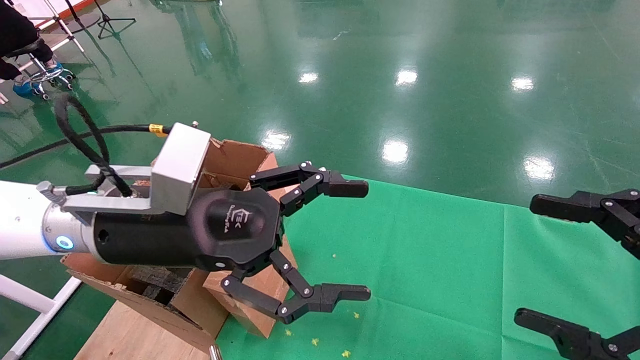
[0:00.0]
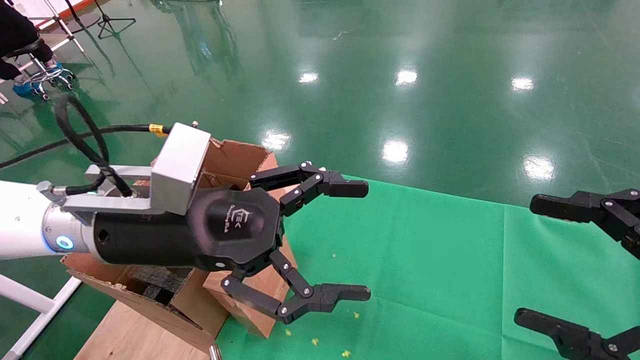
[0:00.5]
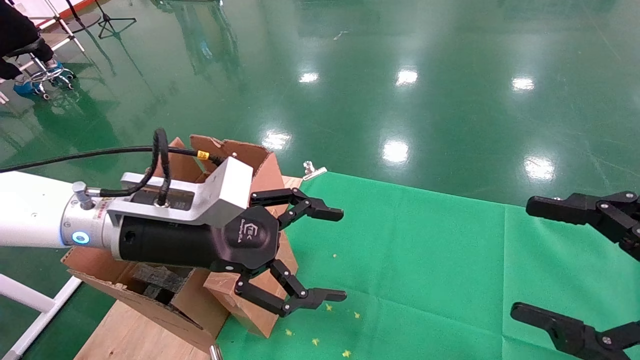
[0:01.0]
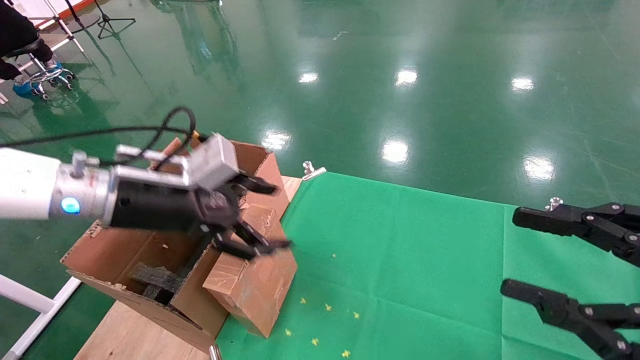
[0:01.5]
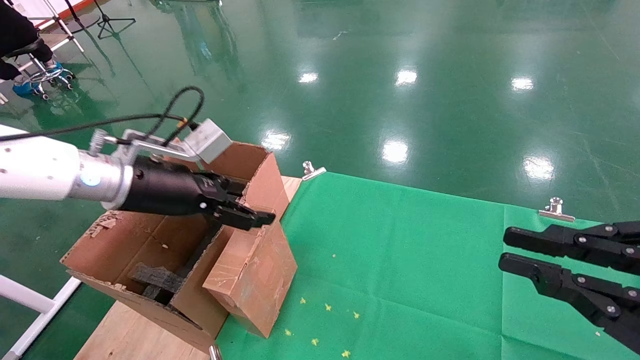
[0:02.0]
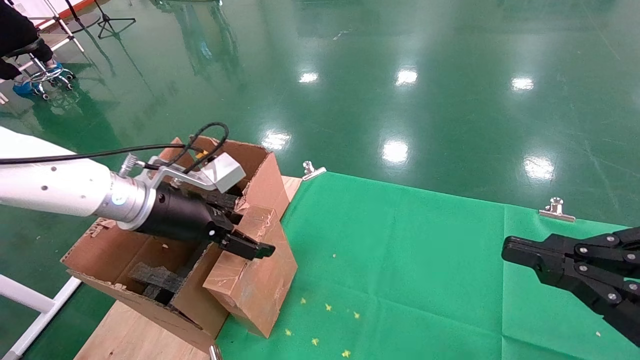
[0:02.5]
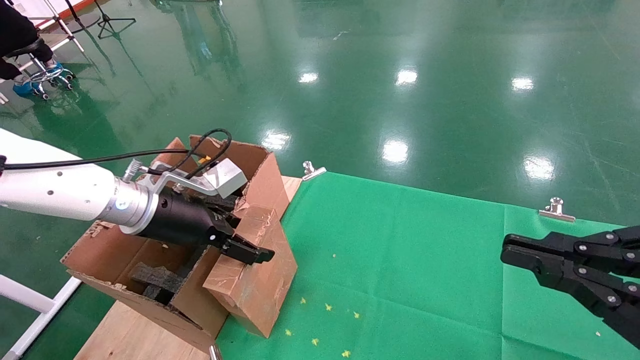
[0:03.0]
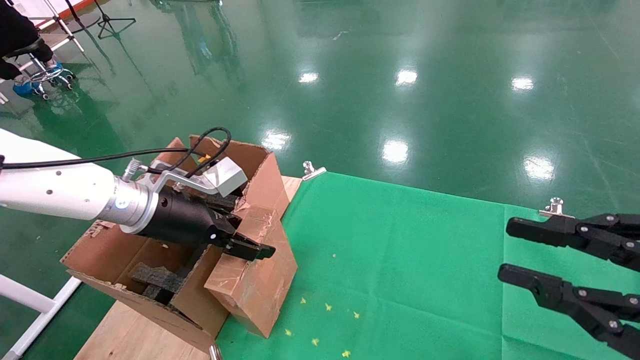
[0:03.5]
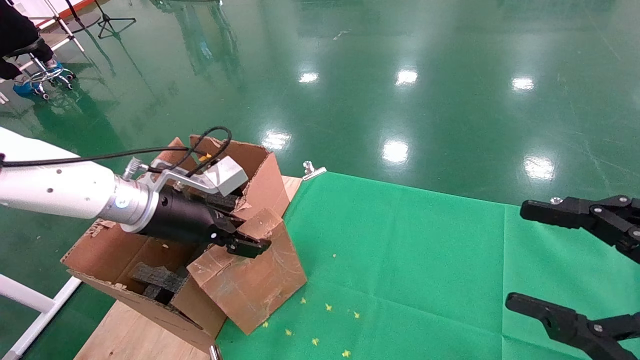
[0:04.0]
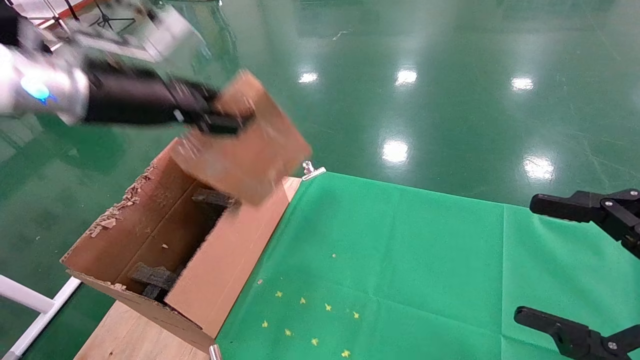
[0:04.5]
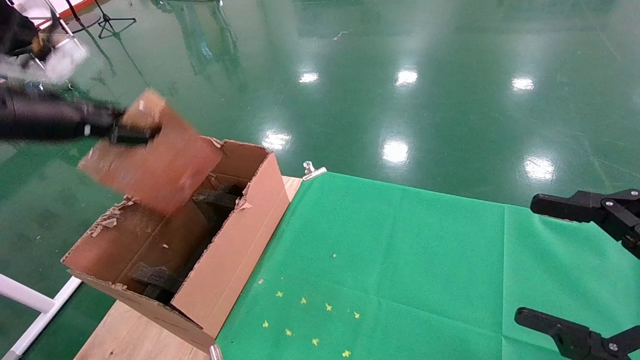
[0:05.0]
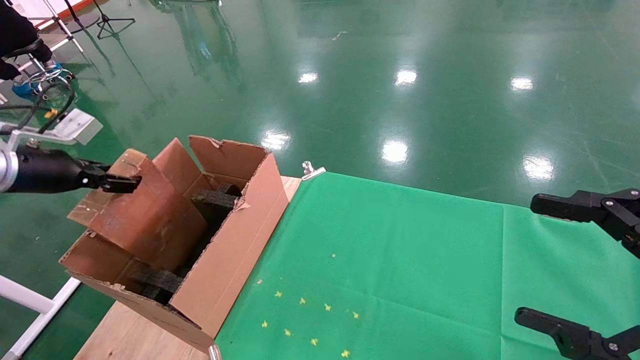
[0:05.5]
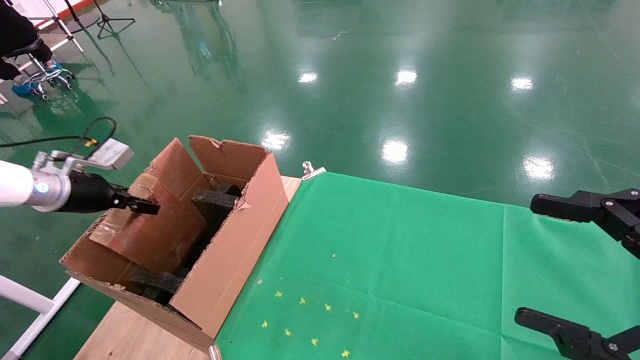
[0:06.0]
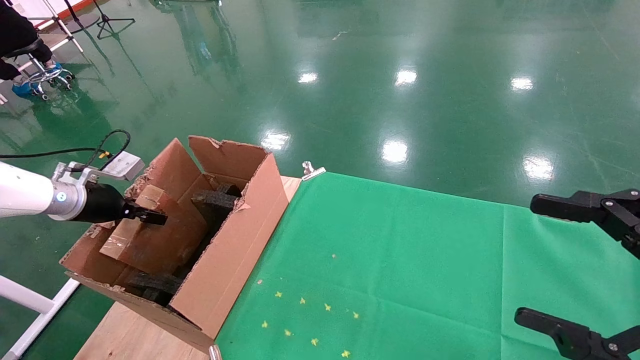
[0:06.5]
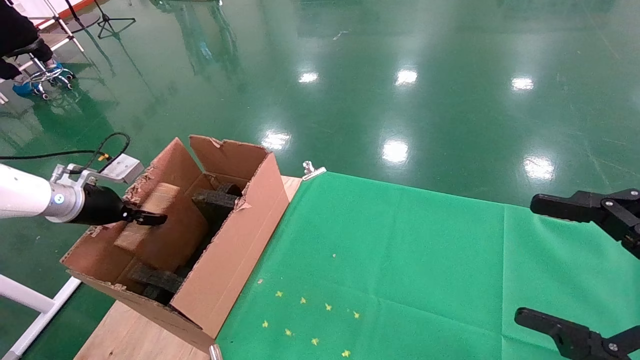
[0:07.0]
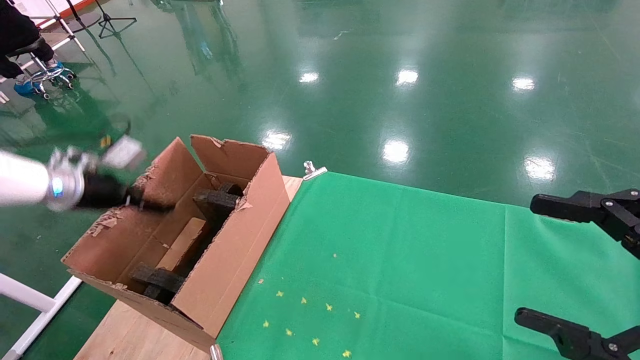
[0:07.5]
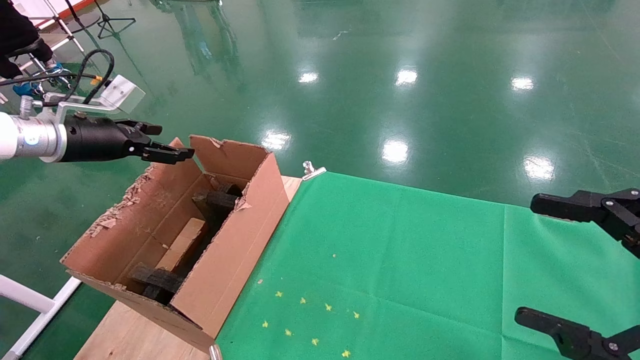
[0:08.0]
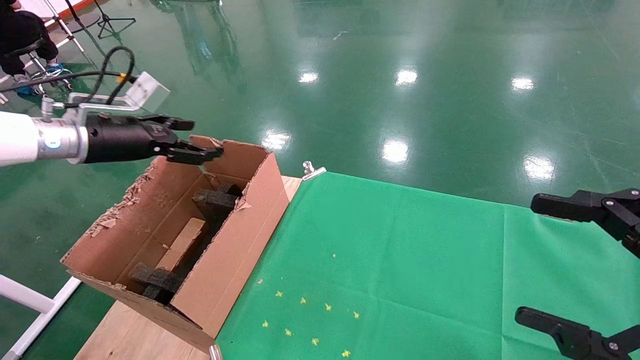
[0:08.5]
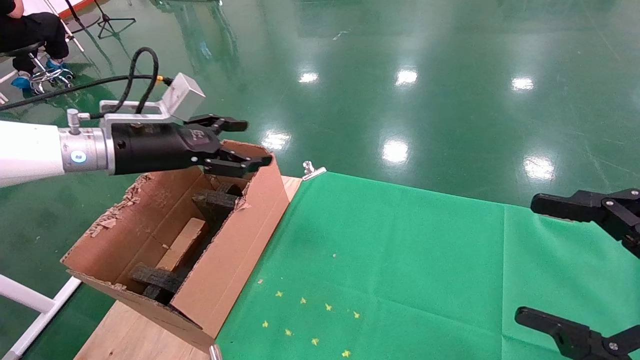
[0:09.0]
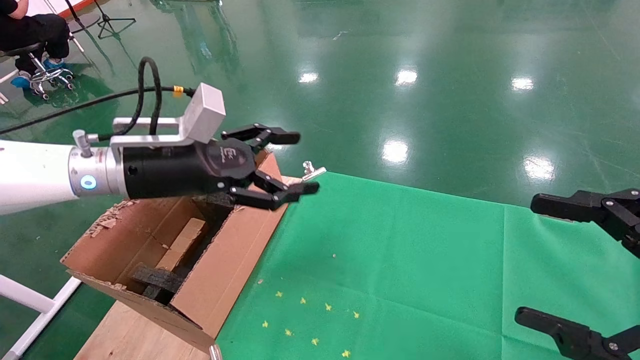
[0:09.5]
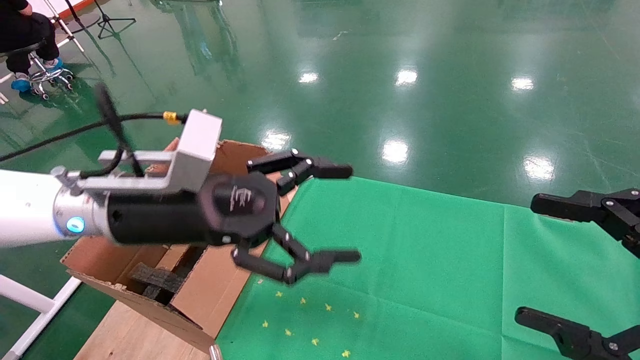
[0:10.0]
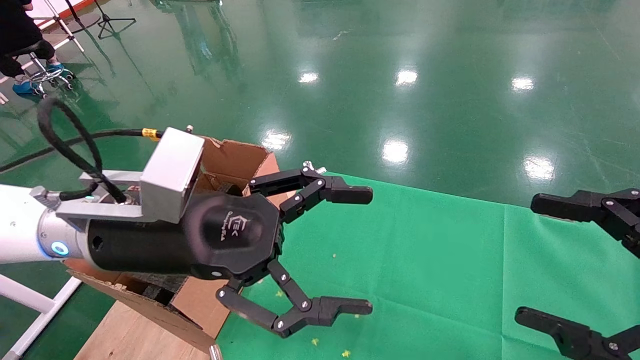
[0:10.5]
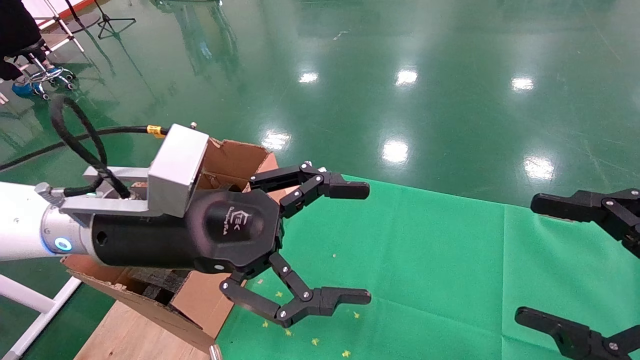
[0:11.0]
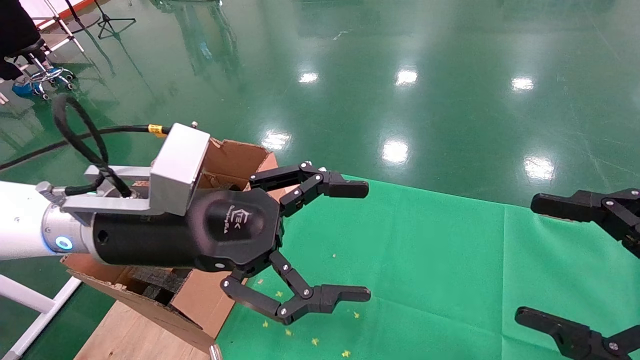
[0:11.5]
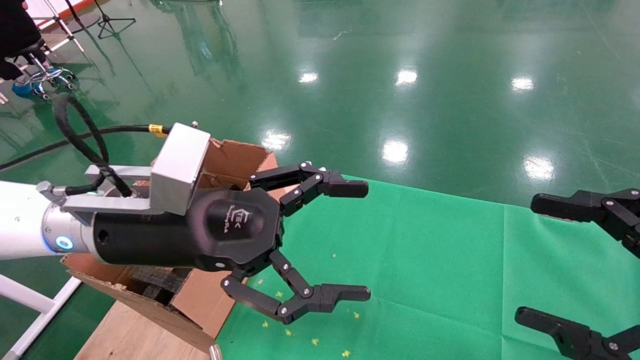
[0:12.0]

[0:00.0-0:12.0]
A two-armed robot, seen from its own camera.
Task of the whole recording: using a robotic arm to pick up a cardboard box and palace it the carton.
Step, 0:01.5 to 0:04.0: Pick up the mouse and the power cord paper box.
Step, 0:04.5 to 0:07.5: Place the mouse and the power cord paper box into the container.
0:00.0 to 0:02.0: The right gripper closes. Meanwhile the left gripper goes about 10 cm to the left and forward.
0:02.0 to 0:04.0: The left gripper closes; the right gripper opens up.
0:04.0 to 0:06.0: The left gripper heads to the left, covering roughly 25 cm, while the right gripper opens up.
0:06.0 to 0:08.0: The left gripper goes about 10 cm upward, and opens up.
0:08.0 to 0:10.0: The left gripper shifts about 25 cm to the right and backward.
0:10.0 to 0:12.0: The grippers make only small movements.

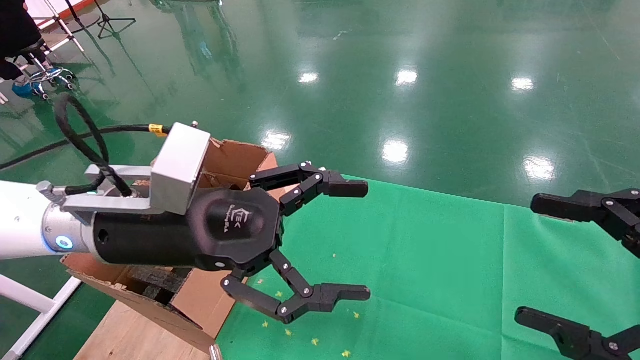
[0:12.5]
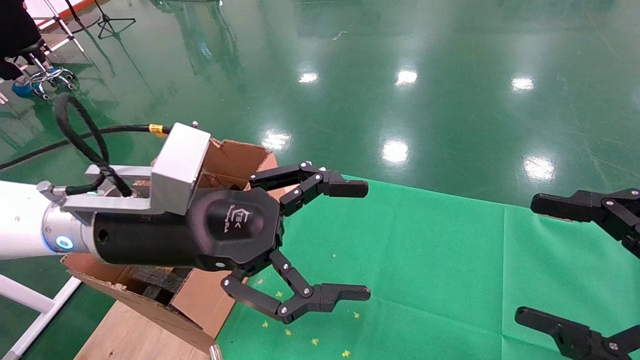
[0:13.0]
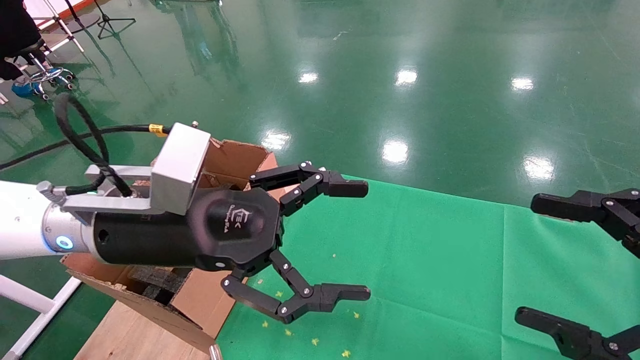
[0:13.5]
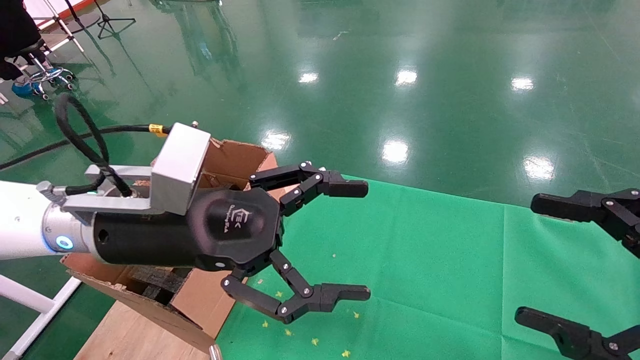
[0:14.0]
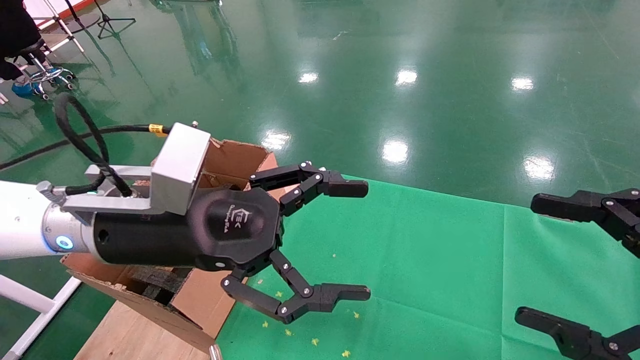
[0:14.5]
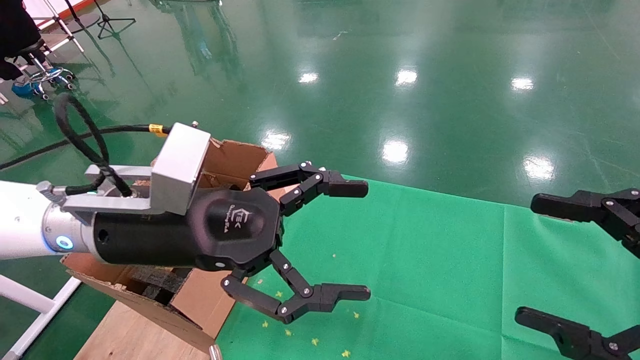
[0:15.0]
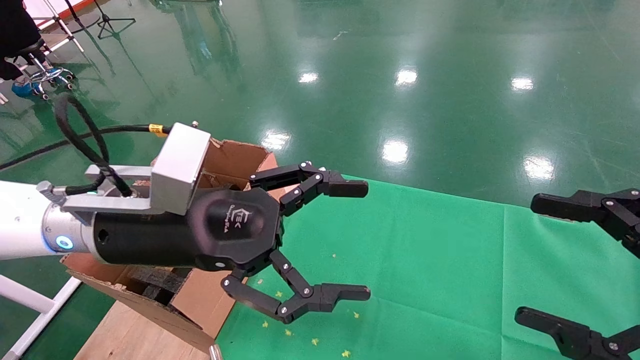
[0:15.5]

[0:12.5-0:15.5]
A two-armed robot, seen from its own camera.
Task of the whole recording: using a robotic arm to pick up a cardboard box and palace it the carton.
0:12.5 to 0:15.5: The two grippers keep their place.
